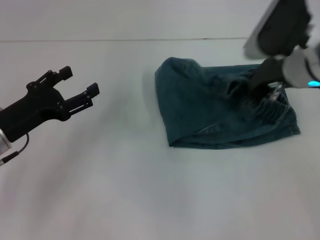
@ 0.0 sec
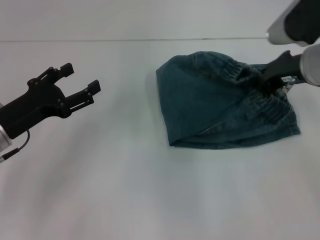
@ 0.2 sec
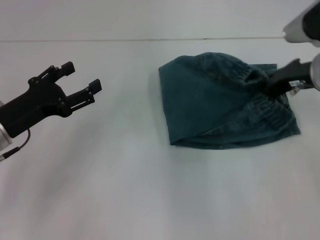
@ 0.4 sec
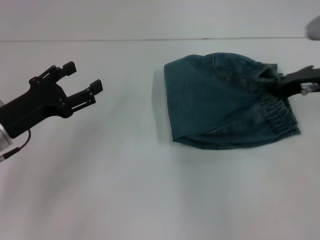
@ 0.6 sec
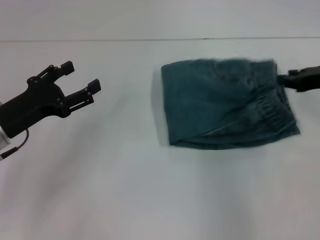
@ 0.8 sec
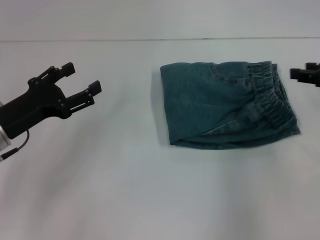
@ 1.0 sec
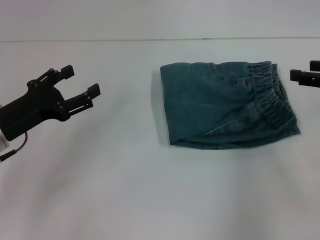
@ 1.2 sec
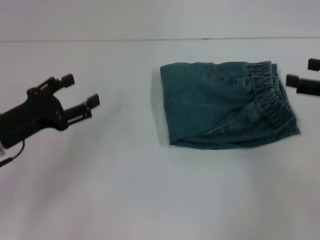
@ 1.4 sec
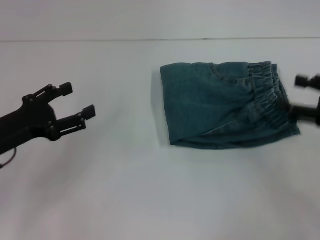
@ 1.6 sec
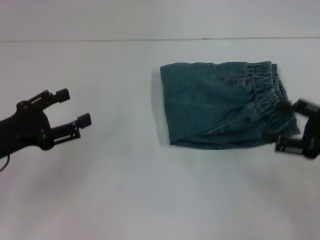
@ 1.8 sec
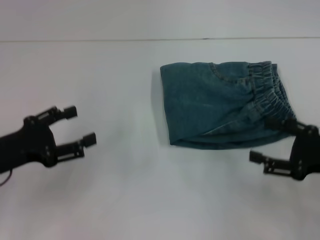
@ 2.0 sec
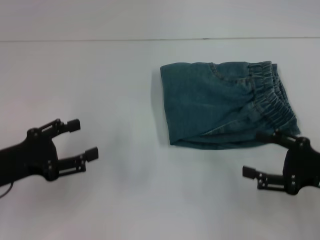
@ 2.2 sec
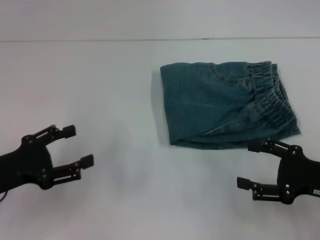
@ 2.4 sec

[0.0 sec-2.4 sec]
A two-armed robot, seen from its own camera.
0.0 sec to 1.2 sec: The right gripper shifts approximately 15 cm to the right, and opens its fingers.
1.2 sec to 2.4 sec: The left gripper goes roughly 5 cm backward, while the right gripper goes approximately 15 cm downward and backward, and opens its fingers.

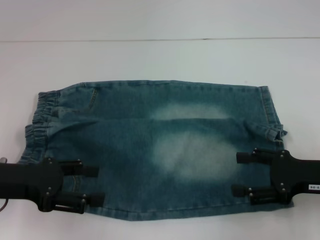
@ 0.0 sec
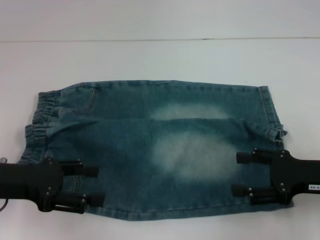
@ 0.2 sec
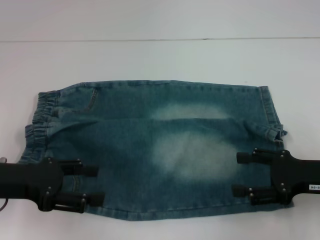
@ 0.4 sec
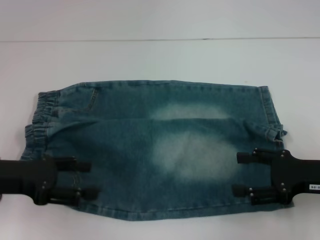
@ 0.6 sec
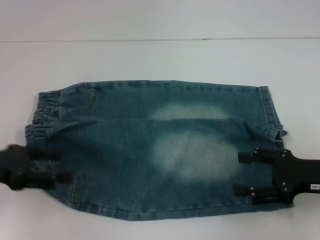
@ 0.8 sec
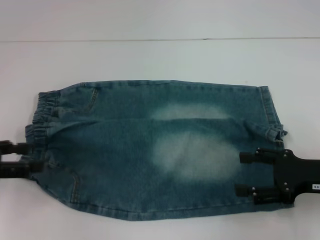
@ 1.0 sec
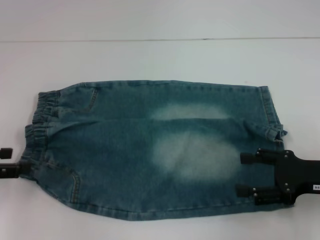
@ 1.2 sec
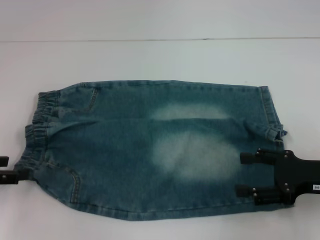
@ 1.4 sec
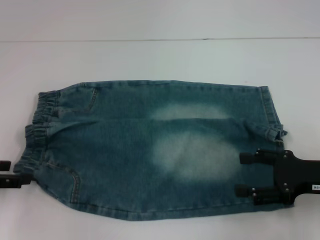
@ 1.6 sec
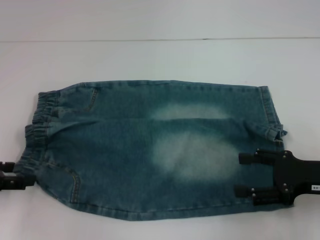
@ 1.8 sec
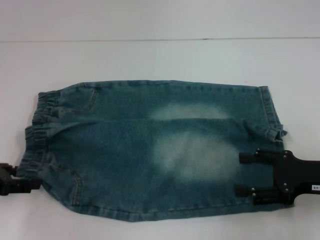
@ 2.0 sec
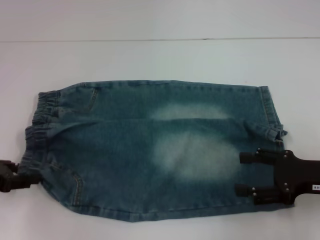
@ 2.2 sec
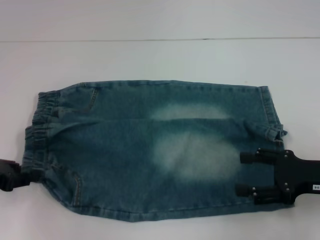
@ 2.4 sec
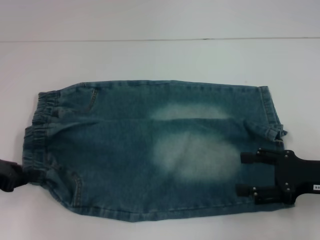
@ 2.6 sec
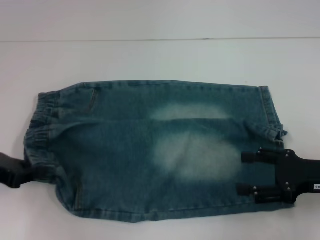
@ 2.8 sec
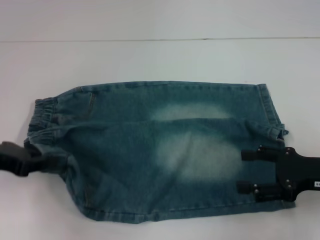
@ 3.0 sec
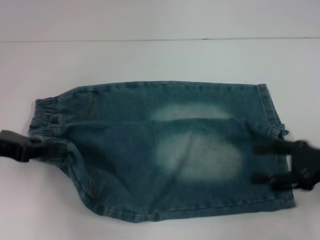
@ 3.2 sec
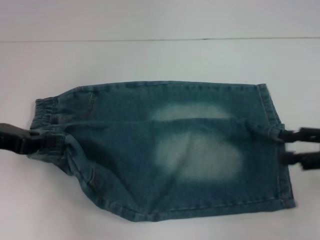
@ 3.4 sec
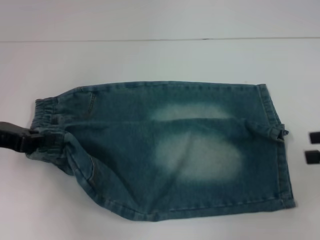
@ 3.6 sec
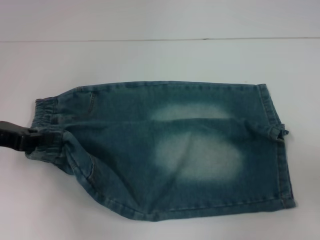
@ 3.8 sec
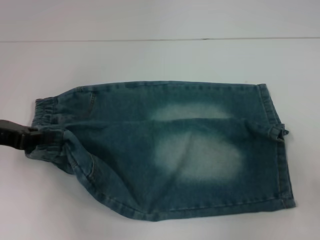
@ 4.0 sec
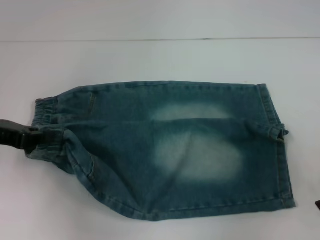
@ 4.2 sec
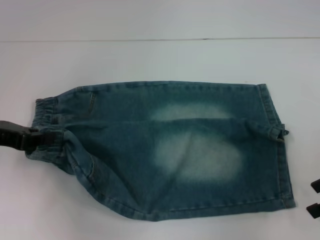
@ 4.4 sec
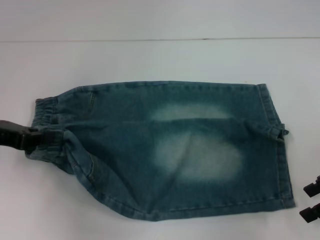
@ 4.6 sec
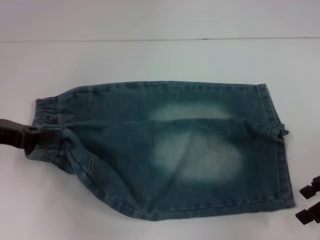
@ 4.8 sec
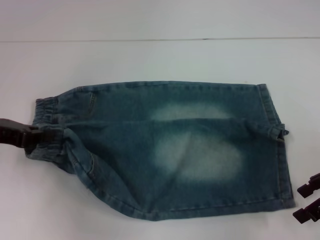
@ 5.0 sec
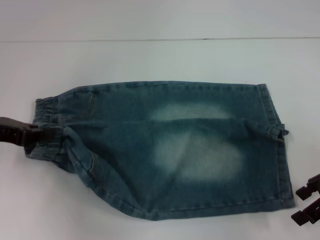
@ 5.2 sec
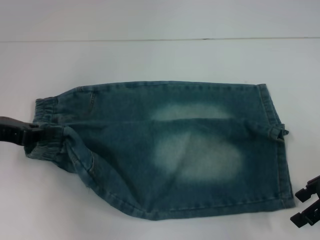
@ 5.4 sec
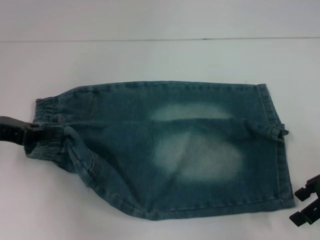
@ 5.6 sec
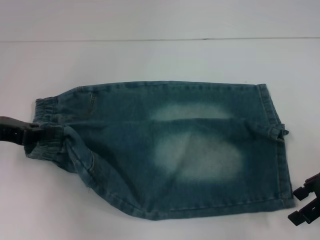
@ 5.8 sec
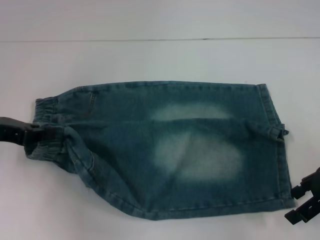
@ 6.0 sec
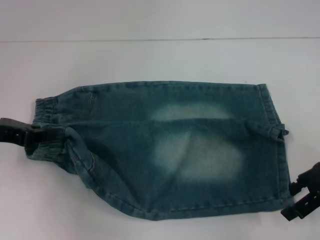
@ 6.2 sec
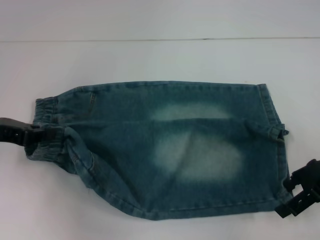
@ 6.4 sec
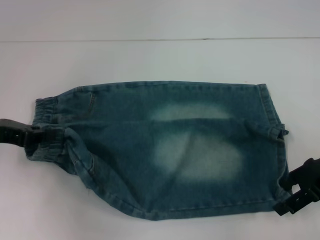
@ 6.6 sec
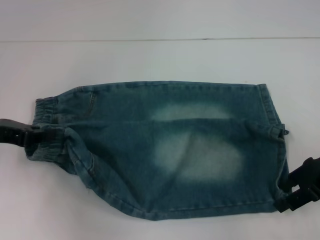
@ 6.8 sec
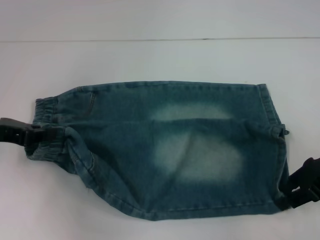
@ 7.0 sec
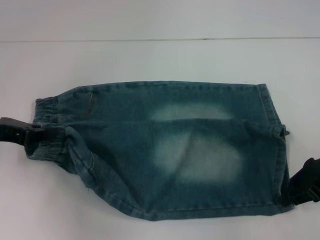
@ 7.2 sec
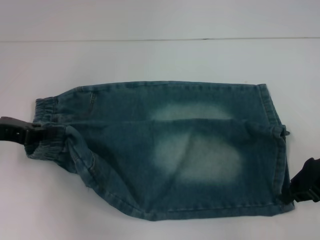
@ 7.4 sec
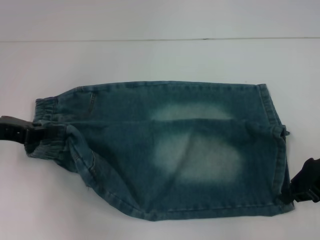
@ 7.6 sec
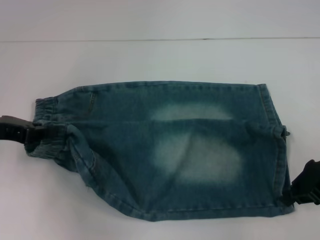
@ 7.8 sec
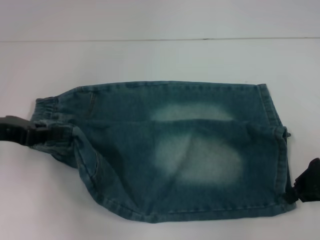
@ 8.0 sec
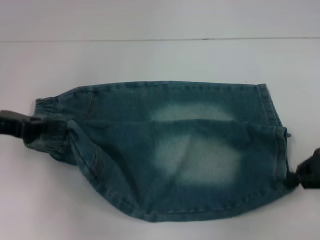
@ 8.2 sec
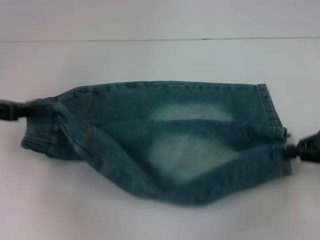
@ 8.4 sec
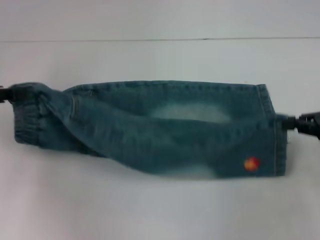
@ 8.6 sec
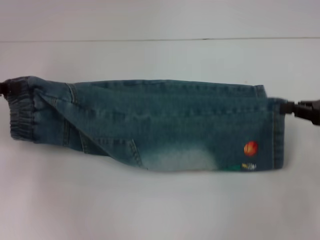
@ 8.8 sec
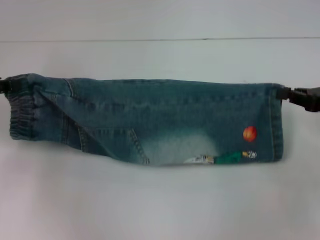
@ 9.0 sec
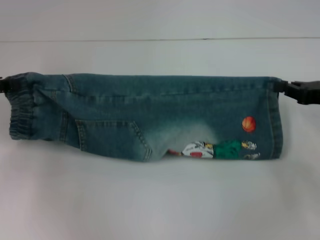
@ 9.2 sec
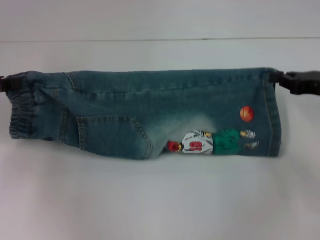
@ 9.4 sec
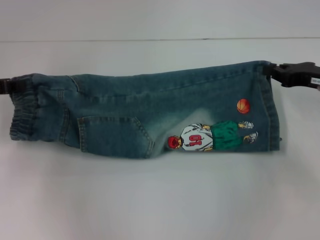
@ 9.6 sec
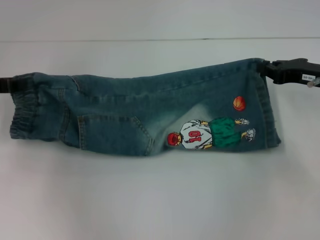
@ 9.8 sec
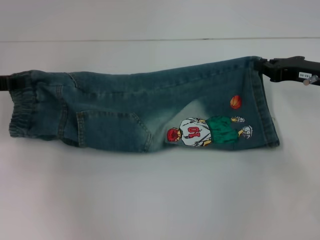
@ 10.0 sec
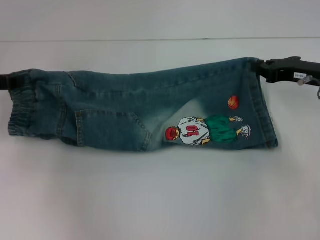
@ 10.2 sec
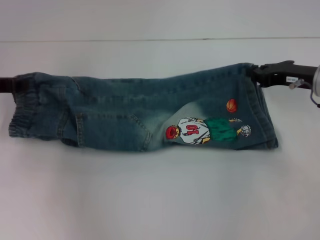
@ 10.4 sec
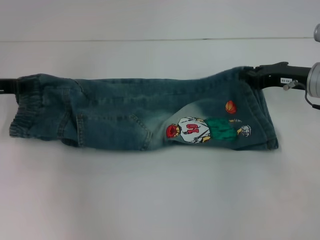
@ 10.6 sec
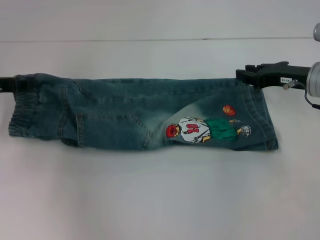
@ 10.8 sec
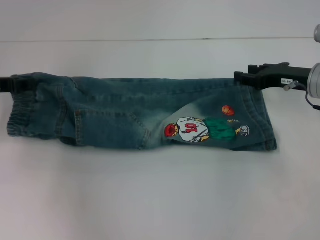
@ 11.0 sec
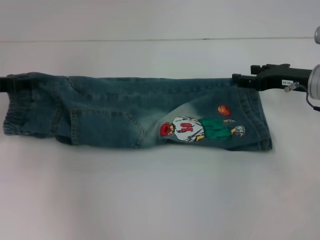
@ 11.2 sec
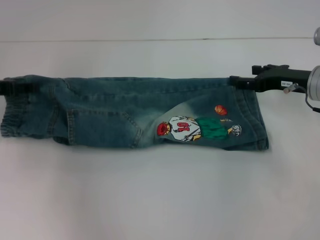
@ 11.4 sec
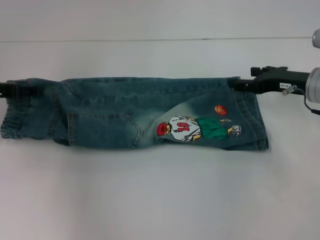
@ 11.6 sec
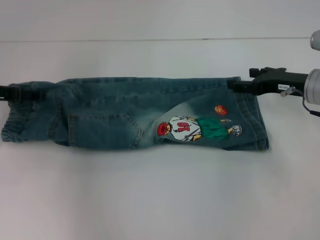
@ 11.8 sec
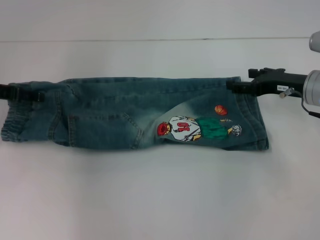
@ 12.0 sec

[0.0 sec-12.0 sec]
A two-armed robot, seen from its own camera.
Step, 0.0 sec to 2.4 sec: Hold the lower left waistband with your left hand.
Step, 2.6 sec to 7.4 sec: Grab the lower right pant leg with your right hand.
0.0 sec to 1.6 sec: The left gripper moves to the left, roughly 10 cm.
1.6 sec to 3.0 sec: The left gripper moves about 5 cm, and closes.
3.0 sec to 4.4 sec: The right gripper goes approximately 10 cm upward and to the right.
4.4 sec to 6.0 sec: The grippers move only a little.
6.0 sec to 7.6 sec: The right gripper closes up.
7.6 sec to 9.0 sec: The left gripper ends up about 5 cm from where it was; the right gripper goes some 5 cm to the right.
9.0 sec to 10.4 sec: The right gripper travels forward and to the left by about 10 cm.
10.4 sec to 12.0 sec: The left gripper opens its fingers. The right gripper opens.

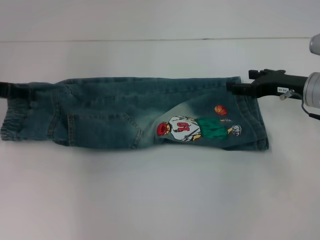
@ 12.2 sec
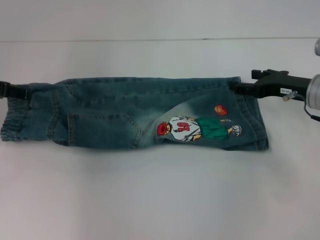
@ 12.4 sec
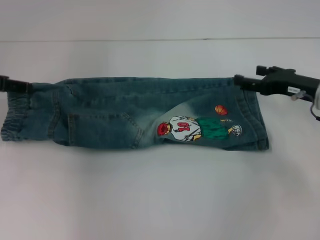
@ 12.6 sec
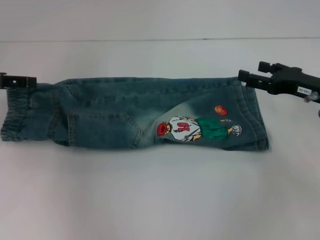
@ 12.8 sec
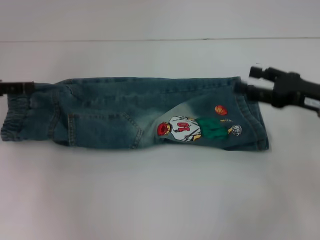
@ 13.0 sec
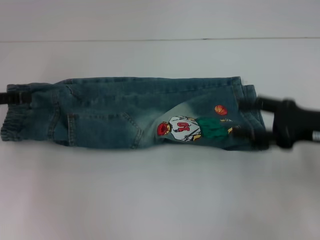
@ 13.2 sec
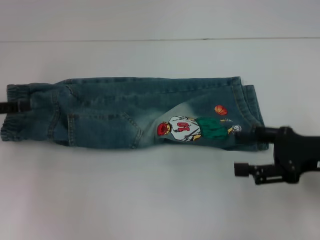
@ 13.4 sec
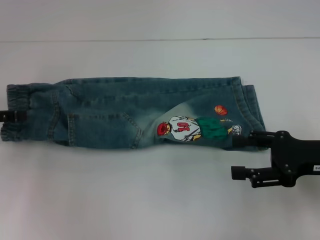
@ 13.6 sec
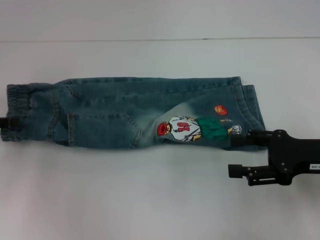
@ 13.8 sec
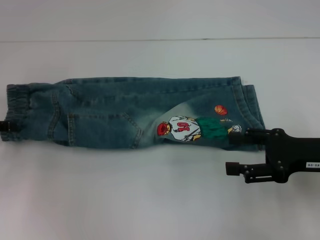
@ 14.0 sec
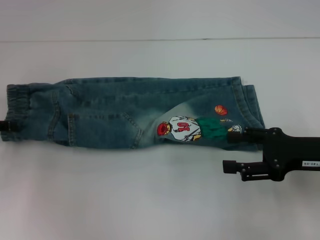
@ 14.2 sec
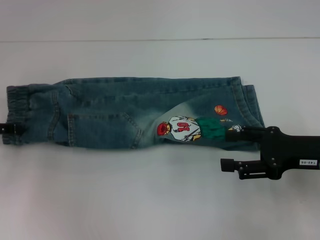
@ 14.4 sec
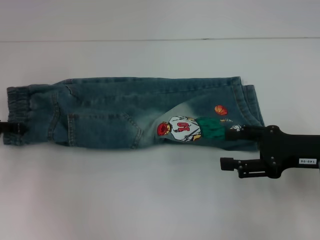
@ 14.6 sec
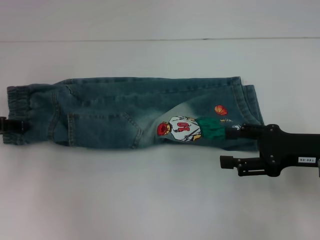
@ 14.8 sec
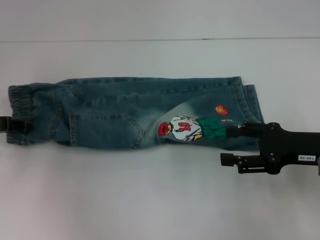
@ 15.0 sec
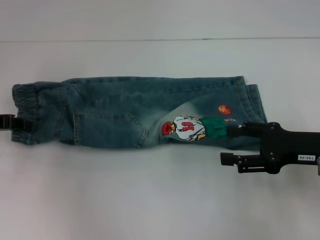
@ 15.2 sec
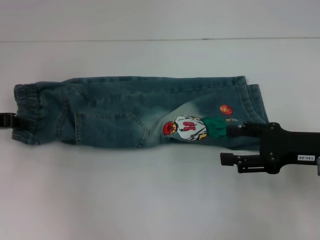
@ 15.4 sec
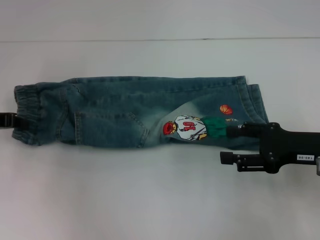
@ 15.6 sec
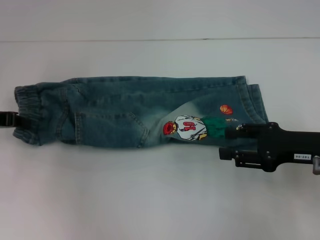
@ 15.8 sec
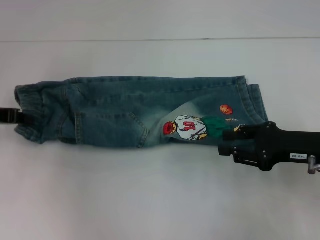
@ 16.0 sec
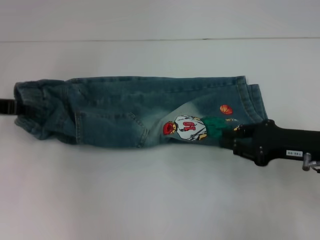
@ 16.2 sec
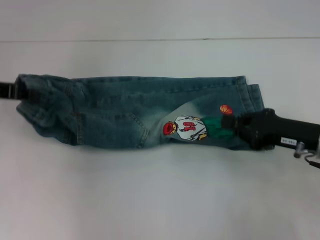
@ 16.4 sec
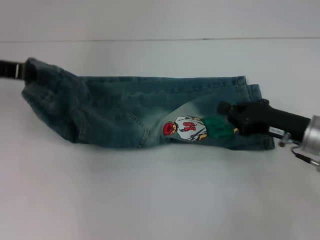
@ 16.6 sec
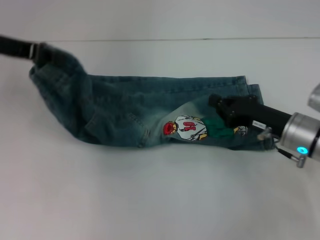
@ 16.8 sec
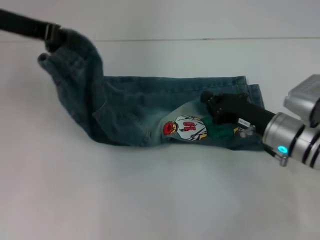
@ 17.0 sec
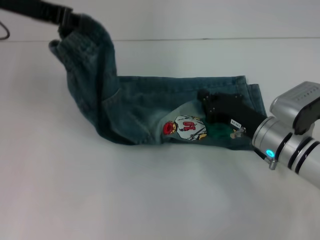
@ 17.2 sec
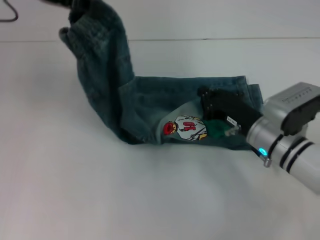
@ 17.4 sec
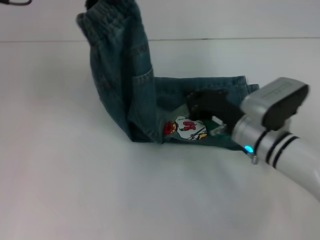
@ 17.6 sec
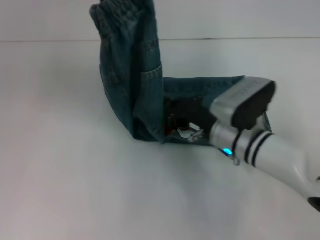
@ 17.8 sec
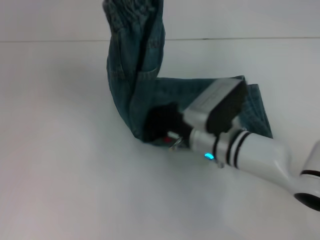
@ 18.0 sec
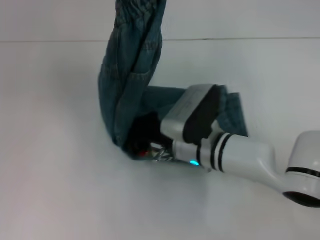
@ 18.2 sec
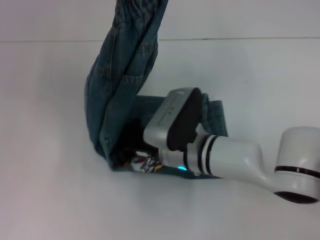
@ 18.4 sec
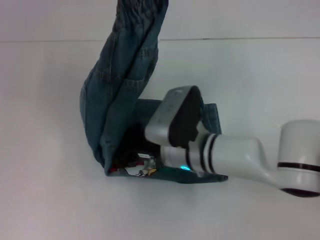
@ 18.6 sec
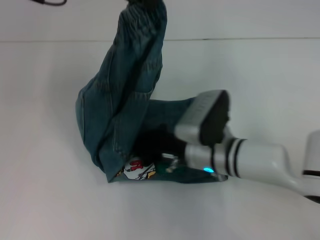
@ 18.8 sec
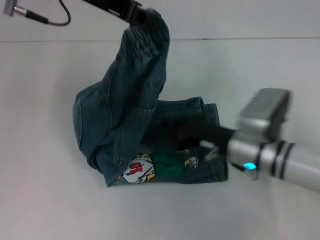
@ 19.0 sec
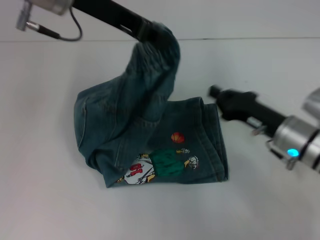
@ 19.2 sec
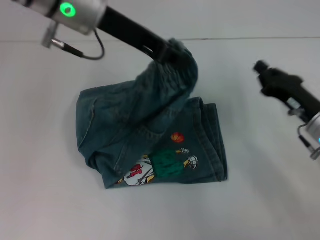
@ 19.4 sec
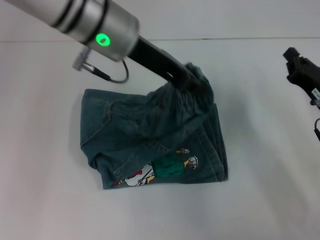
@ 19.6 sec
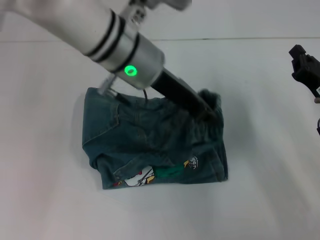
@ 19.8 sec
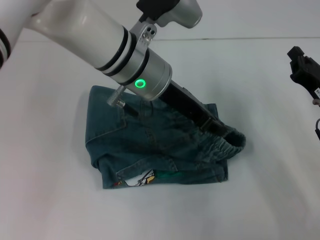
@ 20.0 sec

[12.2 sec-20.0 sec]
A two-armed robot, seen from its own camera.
Step, 12.4 sec to 15.4 sec: Hold the waistband with your left hand.
Step, 15.6 sec to 18.6 sec: Press the middle of the pants with your right hand.
12.2 sec to 13.8 sec: The right gripper is displaced backward by some 10 cm, while the left gripper shifts some 5 cm backward.
13.8 sec to 15.4 sec: The left gripper closes.
15.4 sec to 16.8 sec: The right gripper moves some 5 cm, and closes. Meanwhile the left gripper shifts approximately 10 cm upward and to the right.
16.8 sec to 18.4 sec: The left gripper moves to the right and upward, about 15 cm. The right gripper is displaced to the left by roughly 20 cm.
18.4 sec to 20.0 sec: The right gripper is displaced to the right by approximately 25 cm. The left gripper heads downward and to the right, covering roughly 20 cm.
